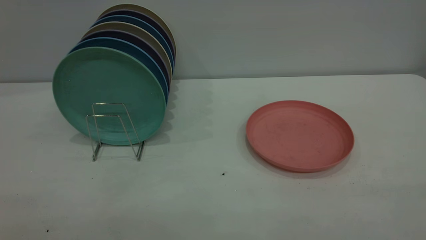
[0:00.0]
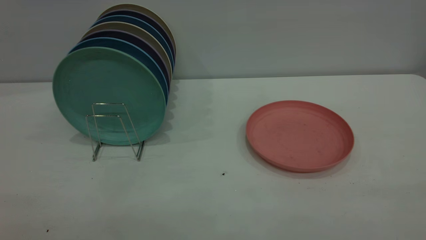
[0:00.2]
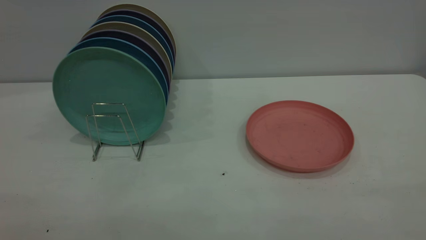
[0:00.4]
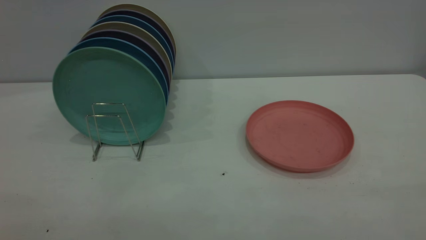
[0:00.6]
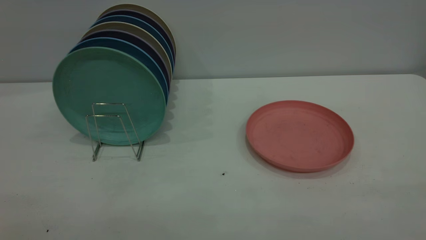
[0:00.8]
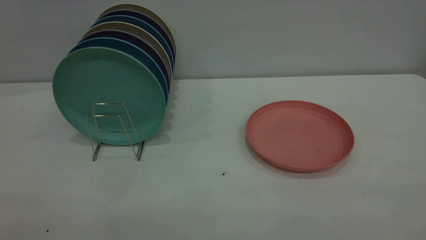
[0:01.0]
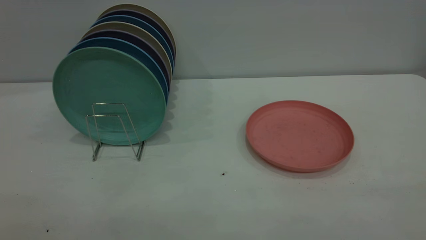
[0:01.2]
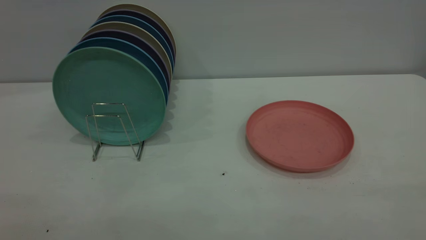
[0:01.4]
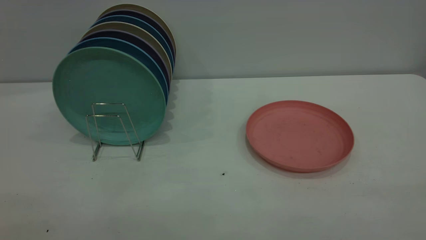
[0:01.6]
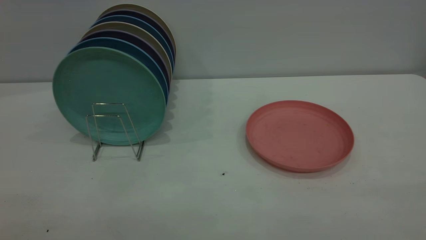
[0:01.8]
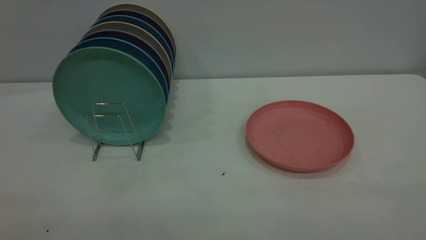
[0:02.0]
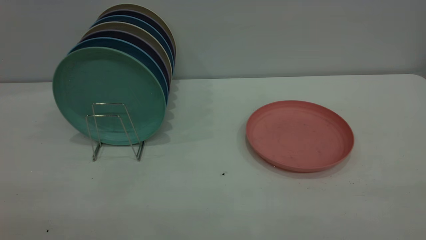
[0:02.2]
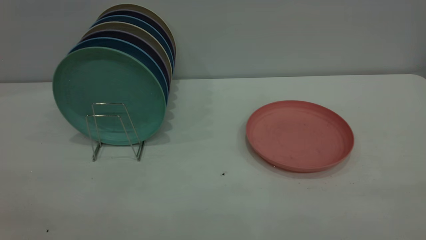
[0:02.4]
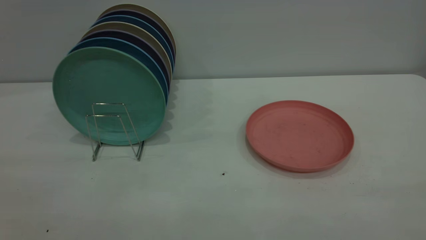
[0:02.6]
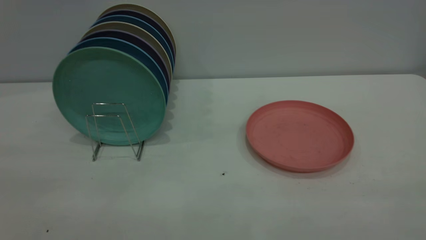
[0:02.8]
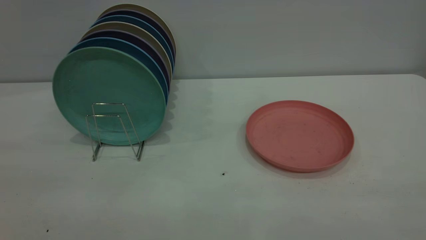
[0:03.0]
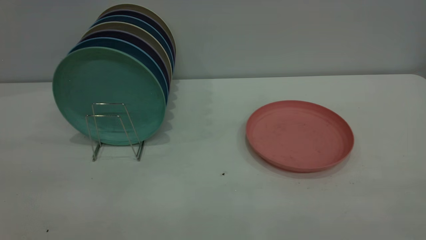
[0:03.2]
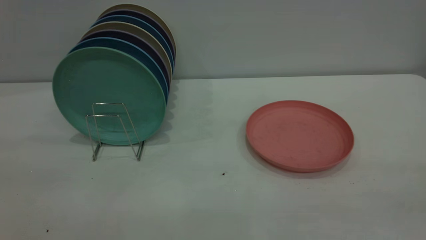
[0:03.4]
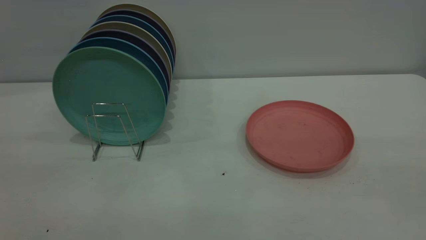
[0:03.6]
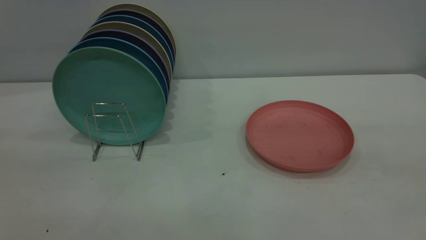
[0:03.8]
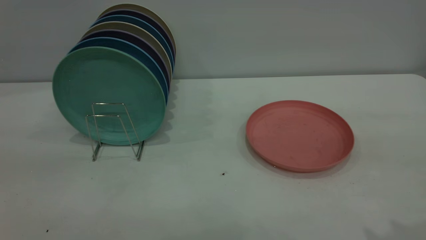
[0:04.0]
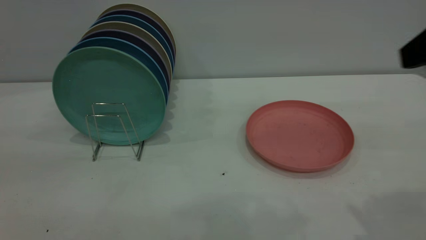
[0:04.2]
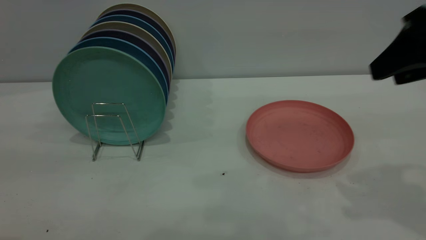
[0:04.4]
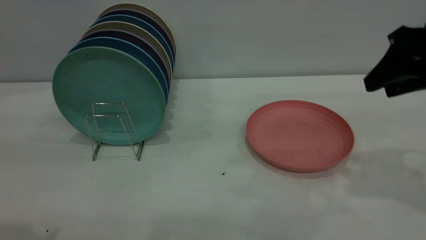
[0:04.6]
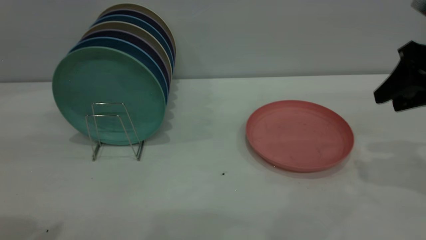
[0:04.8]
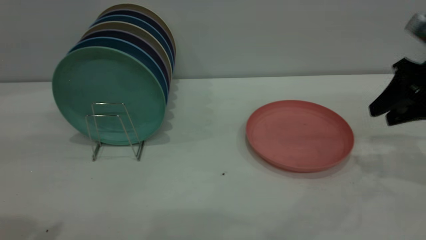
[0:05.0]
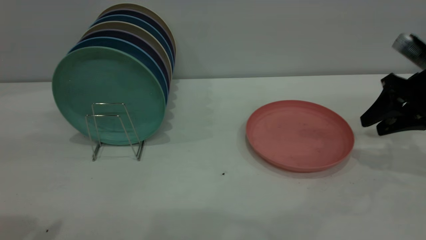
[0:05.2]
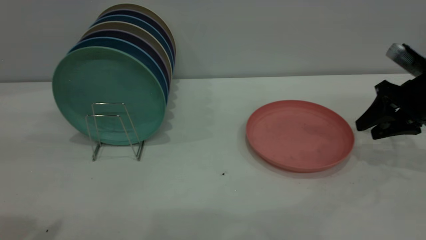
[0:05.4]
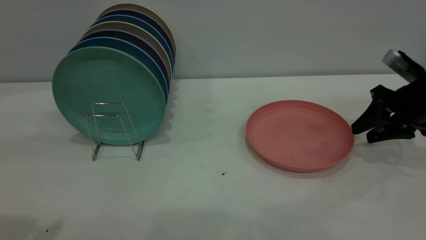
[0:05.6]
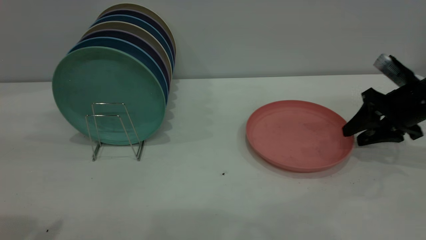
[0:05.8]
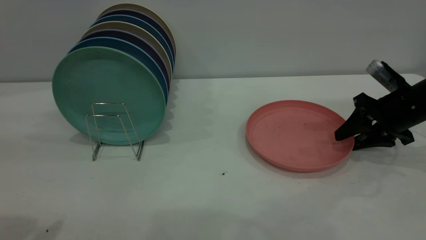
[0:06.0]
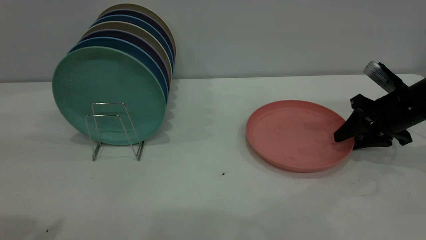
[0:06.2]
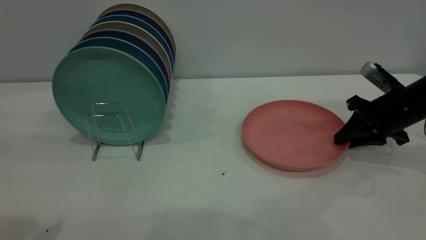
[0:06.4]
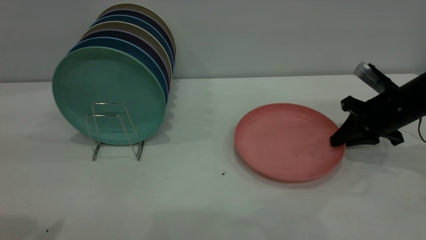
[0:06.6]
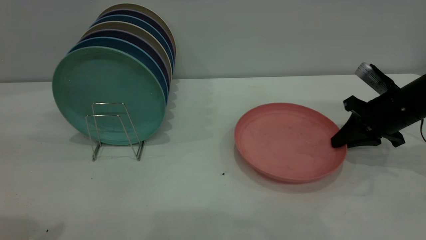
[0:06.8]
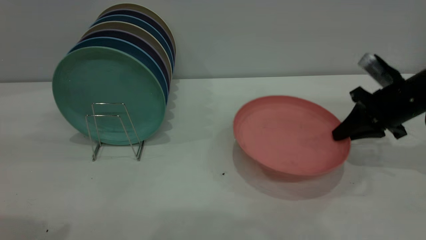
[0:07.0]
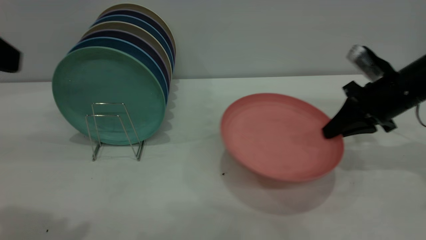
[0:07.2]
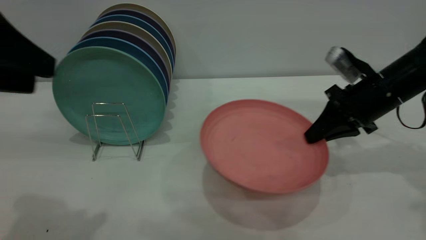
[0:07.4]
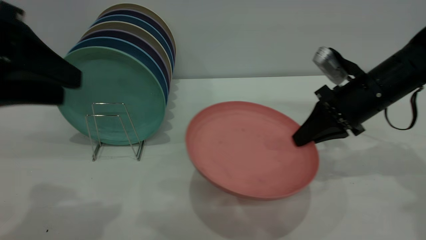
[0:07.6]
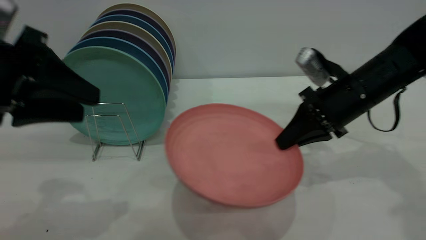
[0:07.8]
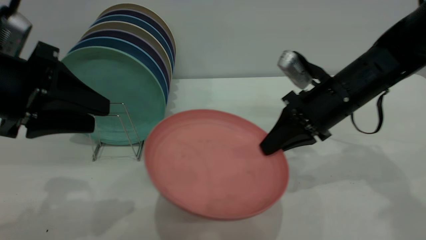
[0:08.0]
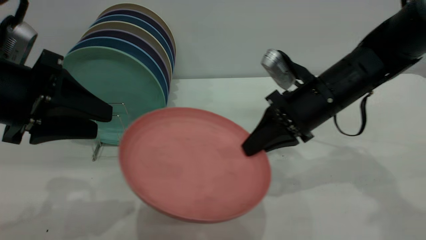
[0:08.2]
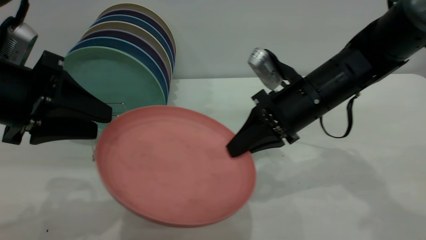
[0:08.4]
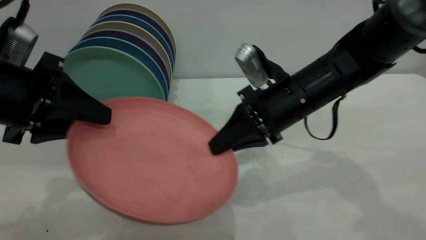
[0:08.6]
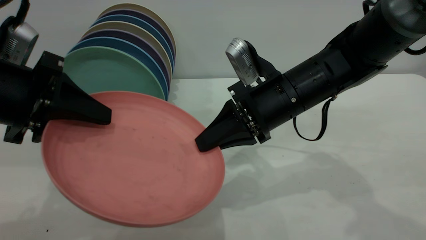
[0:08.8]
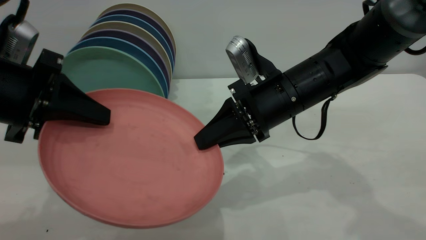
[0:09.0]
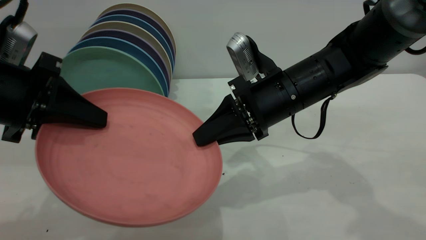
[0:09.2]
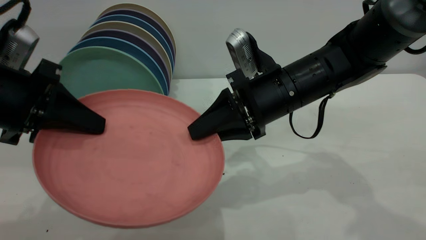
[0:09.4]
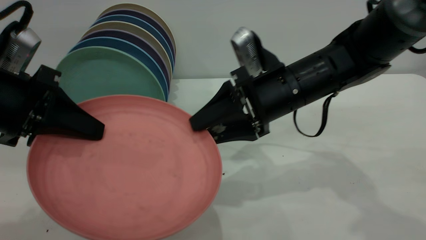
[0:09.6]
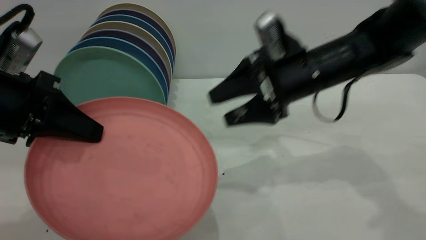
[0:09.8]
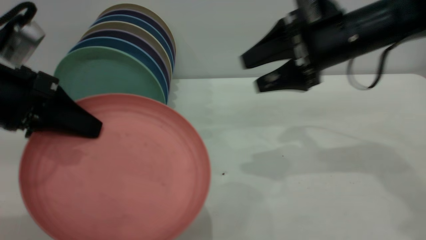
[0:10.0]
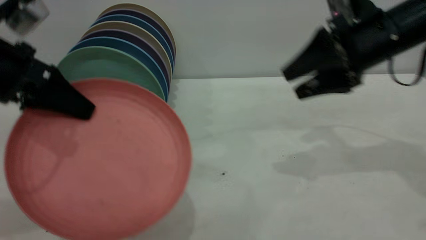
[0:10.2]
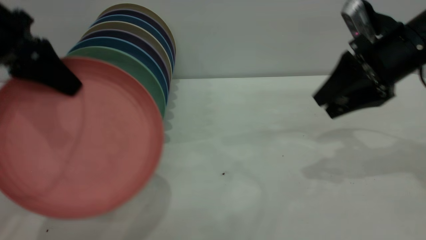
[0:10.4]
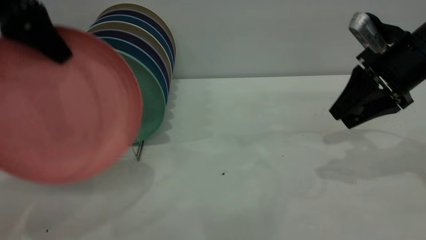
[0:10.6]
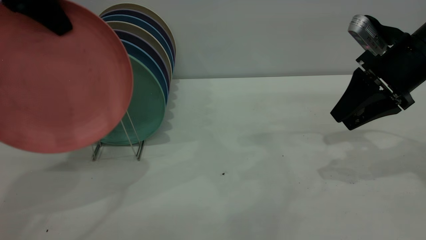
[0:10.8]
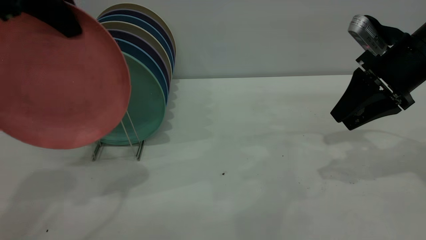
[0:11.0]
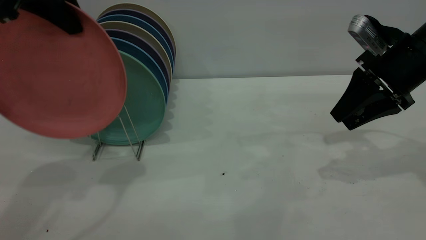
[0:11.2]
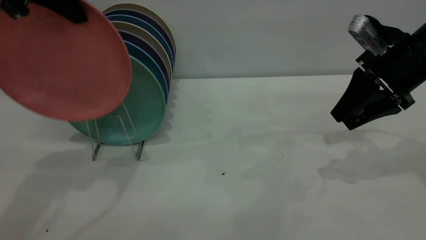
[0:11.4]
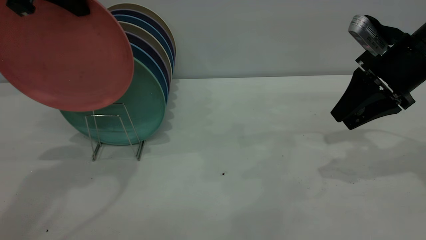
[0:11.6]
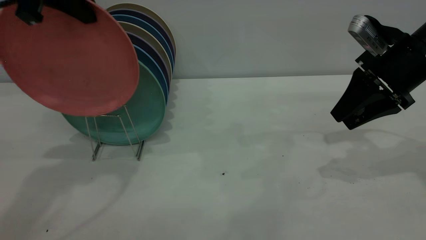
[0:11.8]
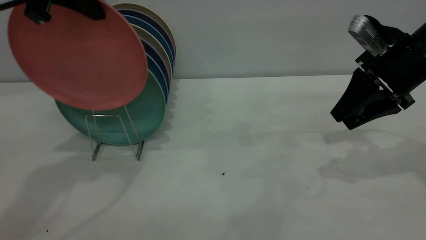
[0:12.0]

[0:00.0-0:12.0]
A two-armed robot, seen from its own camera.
Task of the whole recording: the right gripper grasp the pink plate, the right gripper pass the pink plate to the left gripper, and the left gripper place the pink plate on the plate rack.
Step, 0:00.0 to 0:07.2: Pick up the plate with the right gripper.
Step, 0:07.6 to 0:10.8: Pass the plate from the right gripper to the left gripper.
0:00.0 to 0:01.6: Both grippers stay put.
0:03.0 to 0:04.4: The right gripper heads forward, covering some 30 cm.
0:04.4 to 0:06.0: The right gripper goes about 25 cm downward and forward.
0:06.0 to 0:07.6: The right gripper travels to the left by approximately 10 cm, and closes, while the left gripper heads downward and forward, covering roughly 10 cm.
0:07.6 to 0:09.0: The left gripper moves downward, roughly 5 cm, and closes up. The right gripper is displaced to the left by some 15 cm.
0:09.0 to 0:10.4: The left gripper moves upward and forward, about 10 cm. Meanwhile the right gripper moves to the right, about 15 cm, and opens up.
0:10.4 to 0:12.0: The left gripper is displaced upward and forward by some 10 cm.

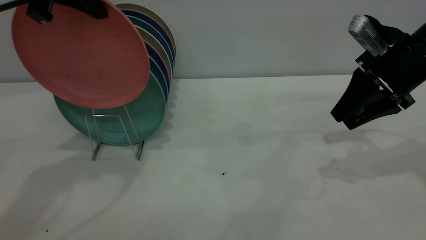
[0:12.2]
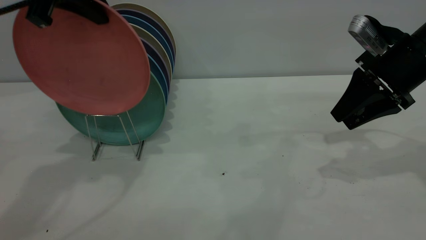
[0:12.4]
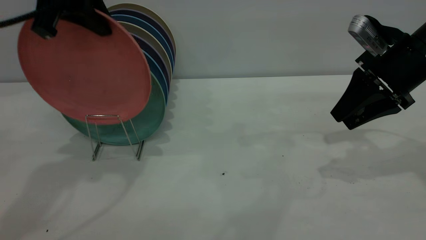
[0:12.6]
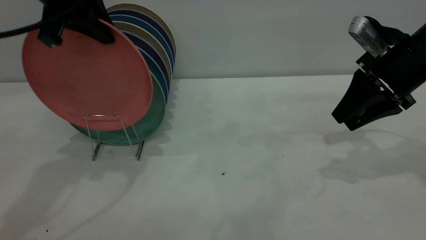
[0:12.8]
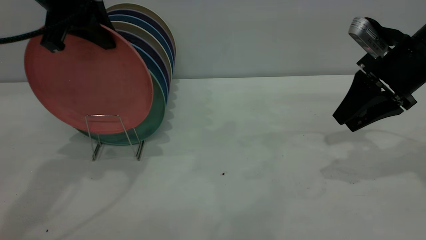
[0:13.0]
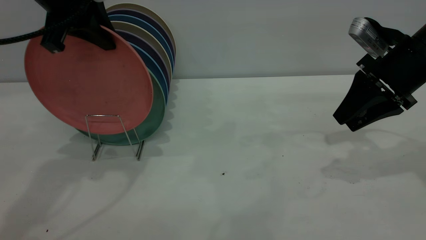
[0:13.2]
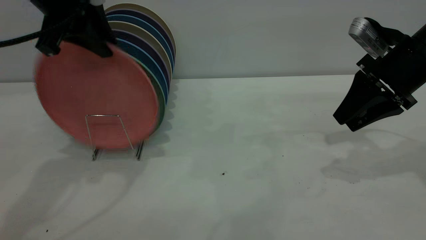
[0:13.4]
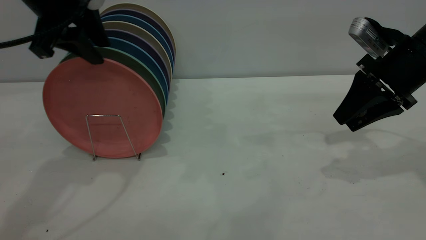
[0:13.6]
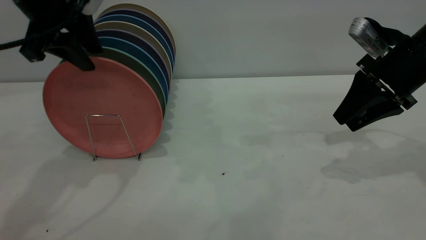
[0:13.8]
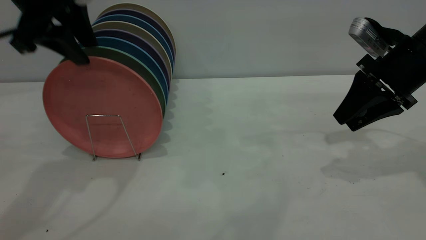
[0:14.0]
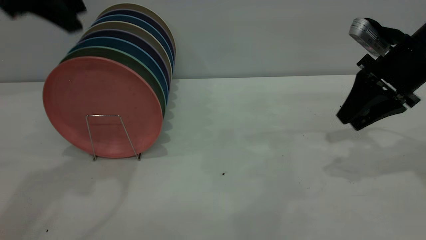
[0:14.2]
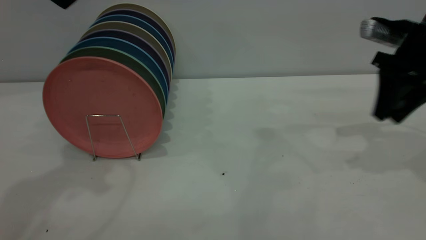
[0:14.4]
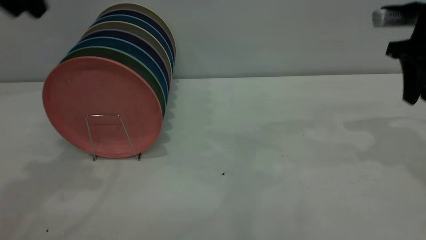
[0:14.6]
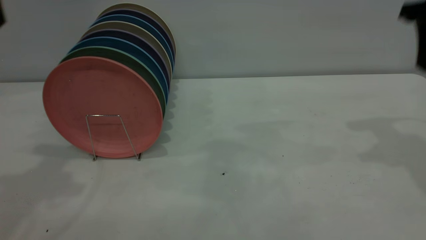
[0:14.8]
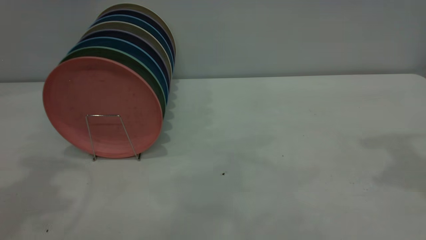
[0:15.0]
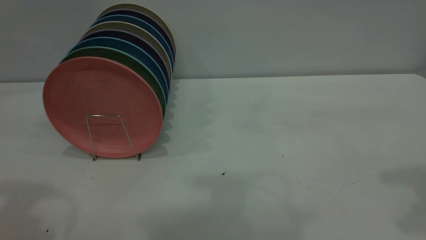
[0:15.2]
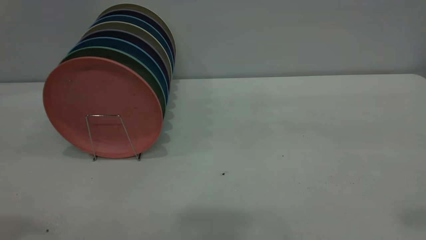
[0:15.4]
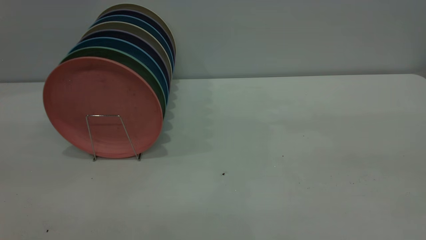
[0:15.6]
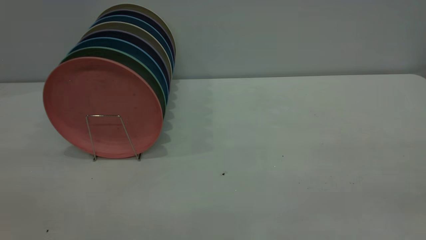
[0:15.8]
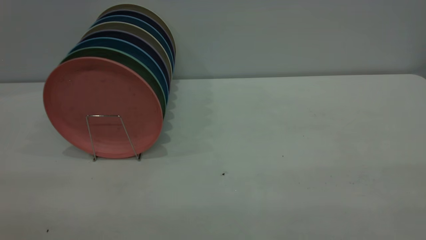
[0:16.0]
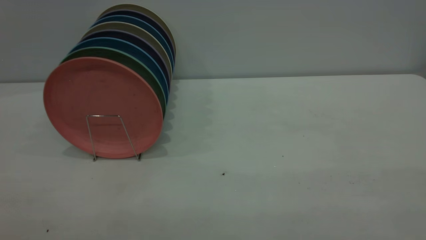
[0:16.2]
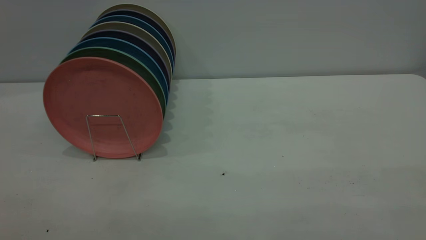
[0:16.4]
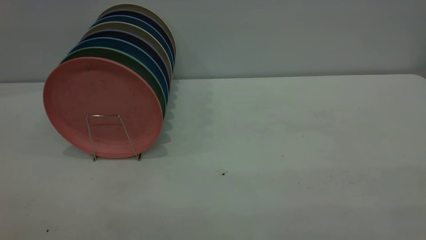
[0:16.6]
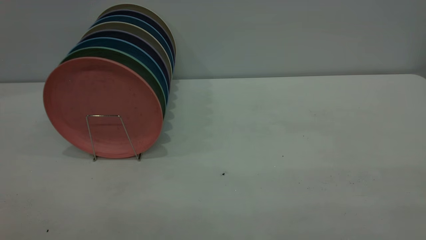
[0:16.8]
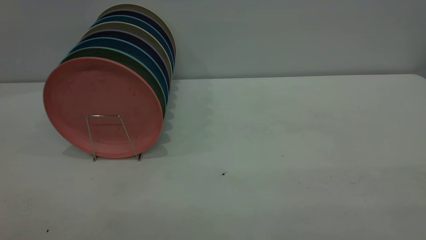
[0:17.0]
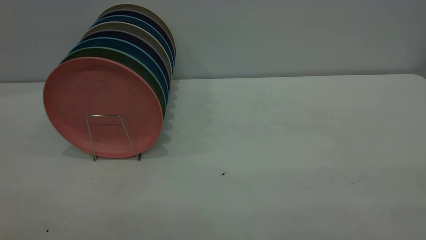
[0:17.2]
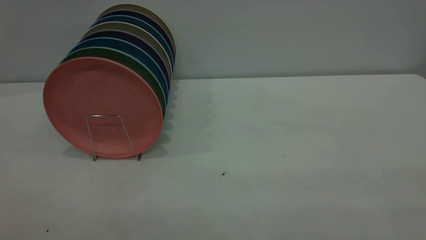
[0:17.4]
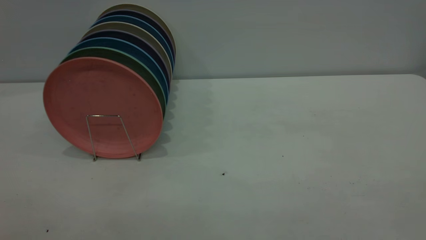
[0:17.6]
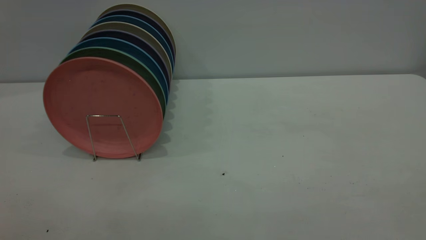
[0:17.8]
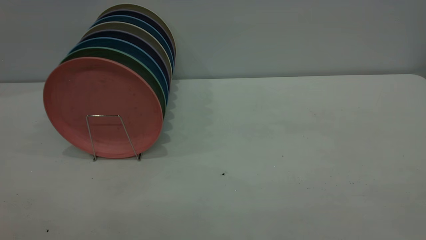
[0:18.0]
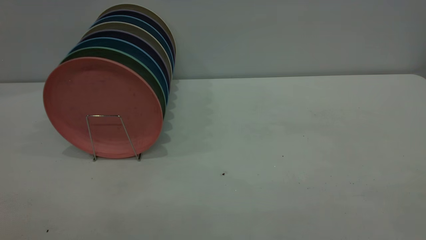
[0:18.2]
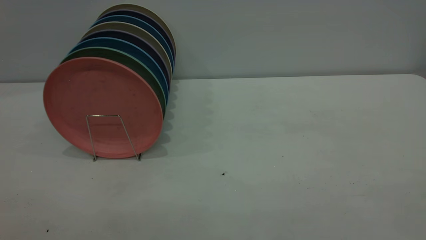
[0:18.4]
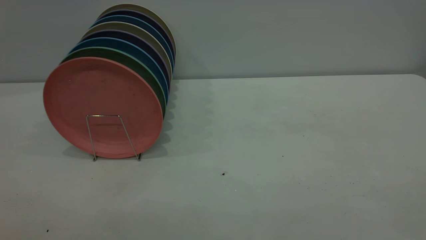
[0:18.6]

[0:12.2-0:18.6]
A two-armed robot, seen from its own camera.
Task of the whole recording: the right gripper grasp the pink plate, the right gripper pass the pink plate to the left gripper, and the left gripper place the pink plate on the plate rack.
Step, 0:12.2 to 0:14.4: Place the plate on the shelf.
0:12.2 to 0:13.8: The left gripper opens.
0:13.8 to 0:15.4: The left gripper shifts about 25 cm backward and upward. Meanwhile the right gripper is displaced upward and backward by approximately 30 cm.
